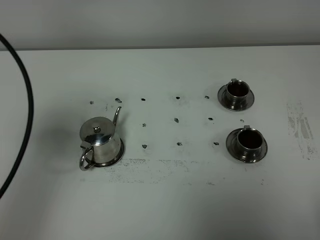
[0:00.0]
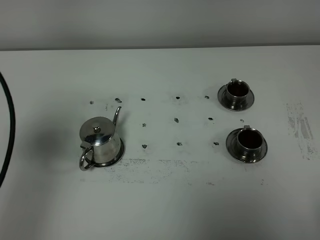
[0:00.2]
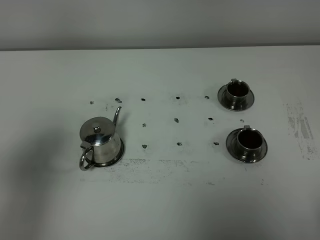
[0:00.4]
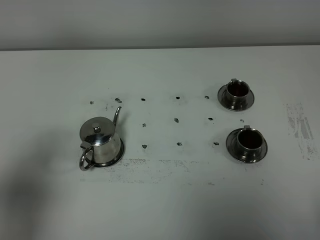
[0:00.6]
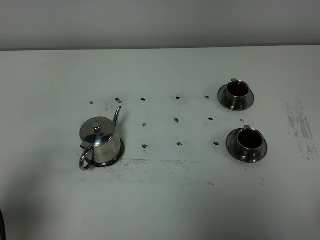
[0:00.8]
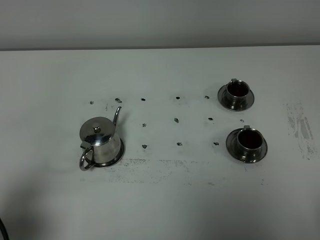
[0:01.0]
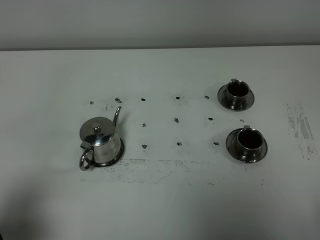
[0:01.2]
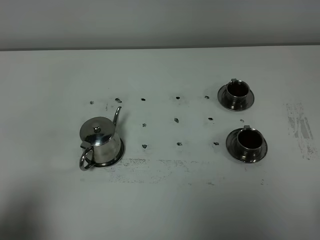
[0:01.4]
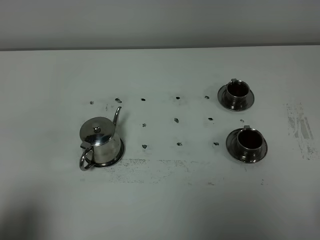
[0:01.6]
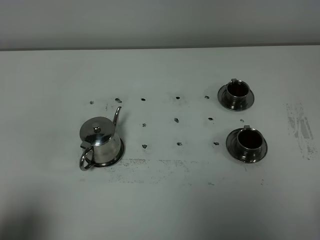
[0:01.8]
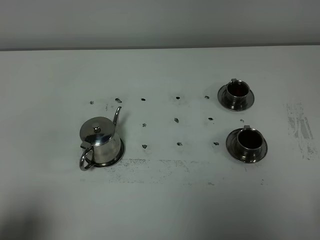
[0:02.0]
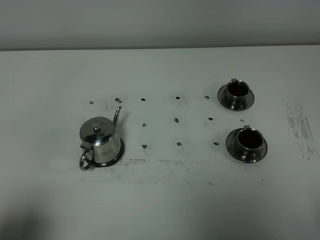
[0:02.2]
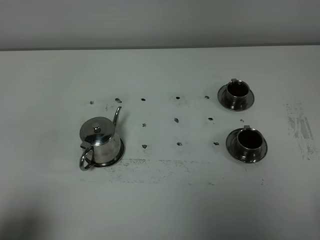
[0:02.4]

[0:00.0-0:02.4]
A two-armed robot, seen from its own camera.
Task of the whole recording: grasp the stainless steel teapot and pour the tea into the two stainless steel teacups one by one, put the stainless steel teapot back in its original place.
0:00.0 to 0:01.2: The left gripper is displaced backward and downward by approximately 20 cm.

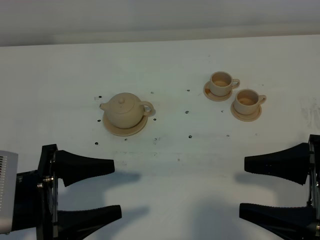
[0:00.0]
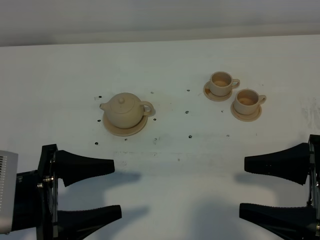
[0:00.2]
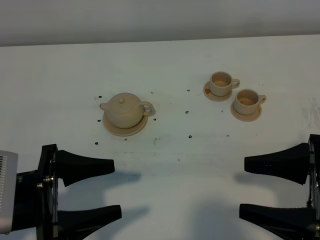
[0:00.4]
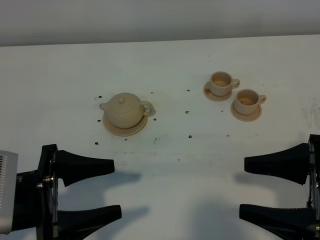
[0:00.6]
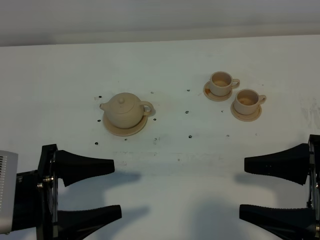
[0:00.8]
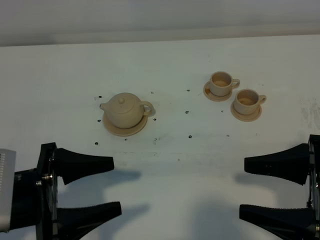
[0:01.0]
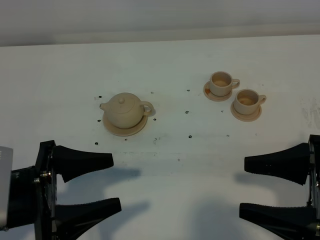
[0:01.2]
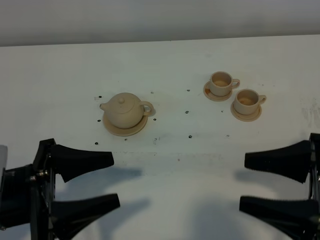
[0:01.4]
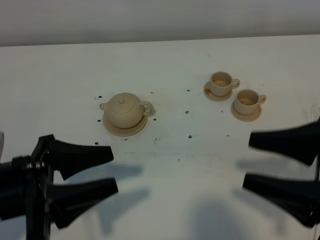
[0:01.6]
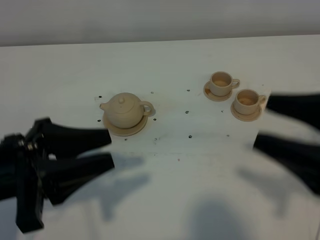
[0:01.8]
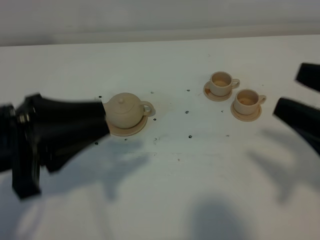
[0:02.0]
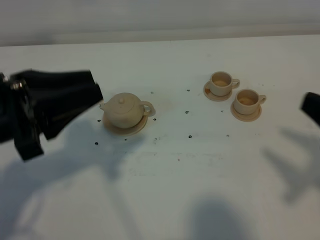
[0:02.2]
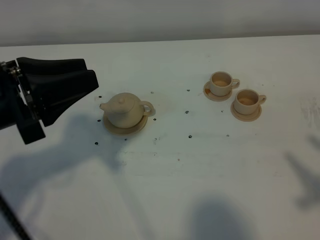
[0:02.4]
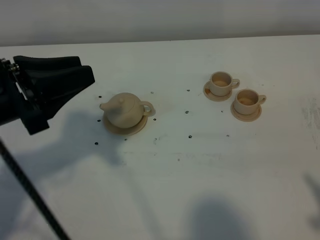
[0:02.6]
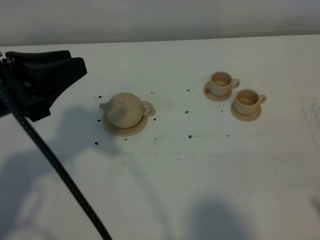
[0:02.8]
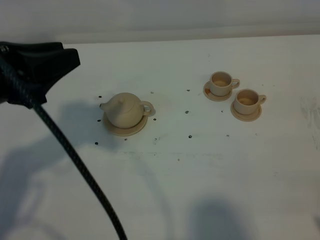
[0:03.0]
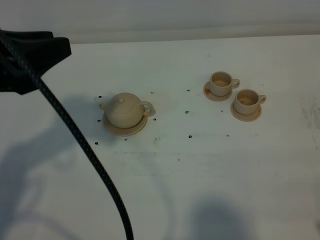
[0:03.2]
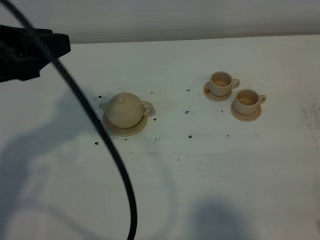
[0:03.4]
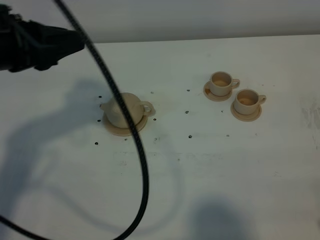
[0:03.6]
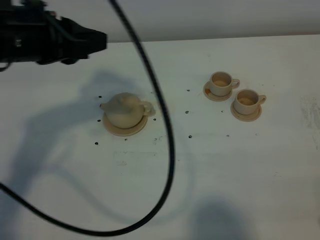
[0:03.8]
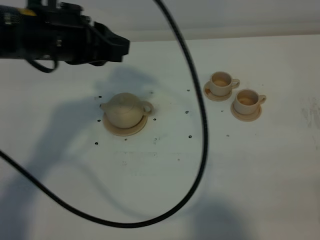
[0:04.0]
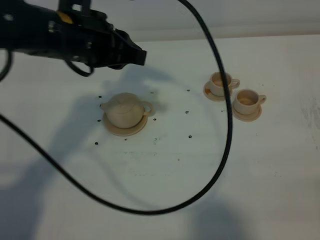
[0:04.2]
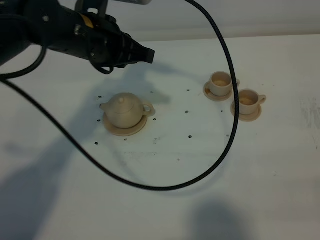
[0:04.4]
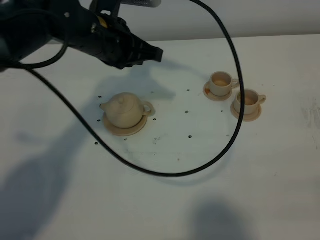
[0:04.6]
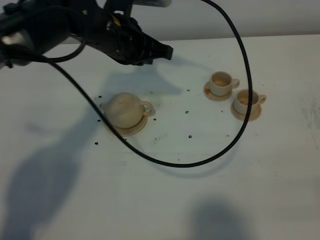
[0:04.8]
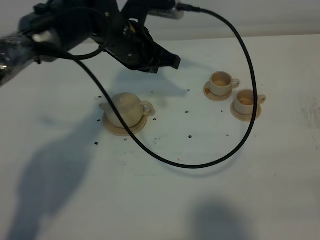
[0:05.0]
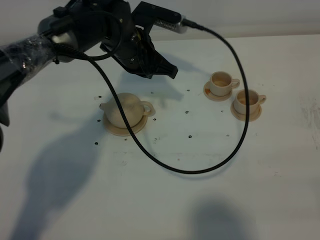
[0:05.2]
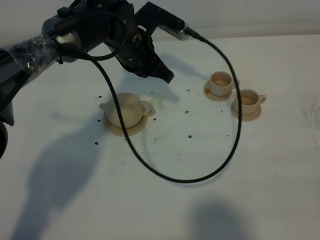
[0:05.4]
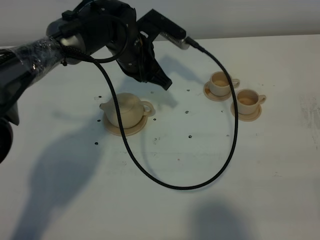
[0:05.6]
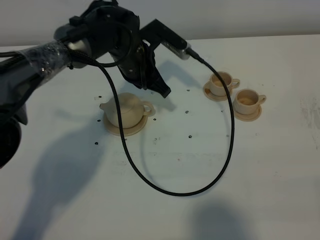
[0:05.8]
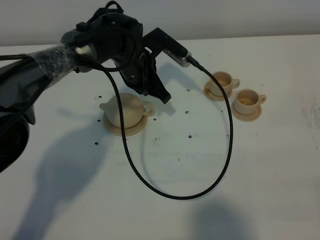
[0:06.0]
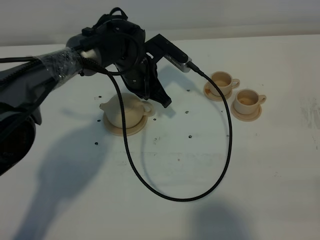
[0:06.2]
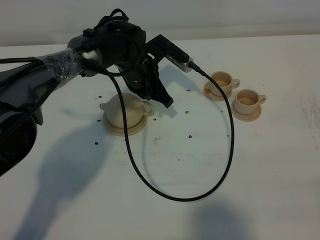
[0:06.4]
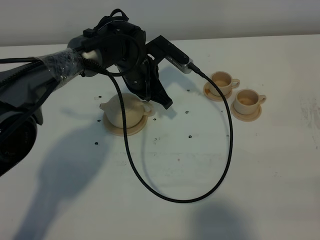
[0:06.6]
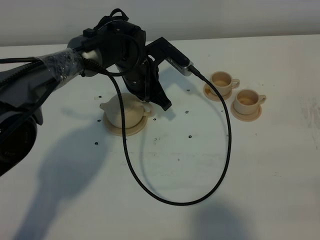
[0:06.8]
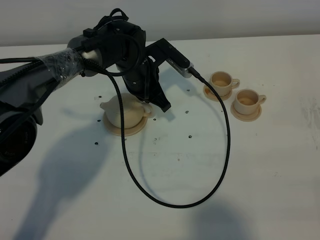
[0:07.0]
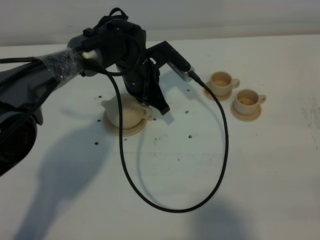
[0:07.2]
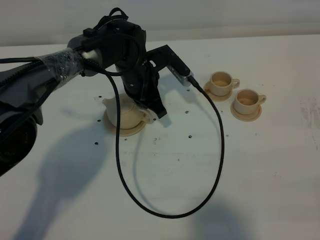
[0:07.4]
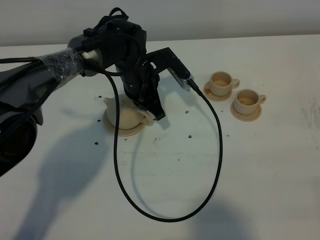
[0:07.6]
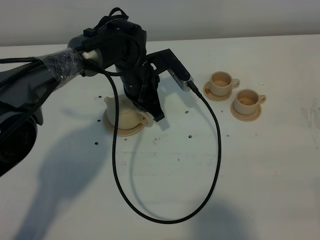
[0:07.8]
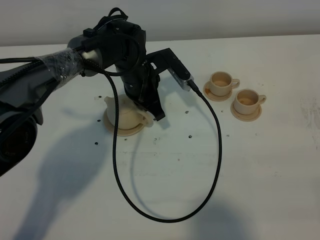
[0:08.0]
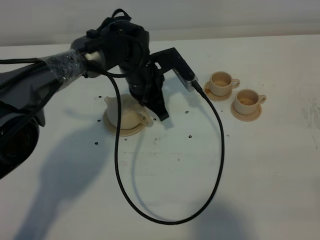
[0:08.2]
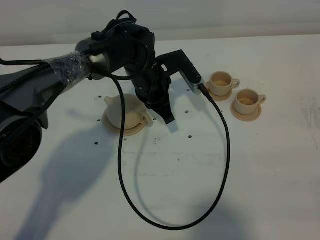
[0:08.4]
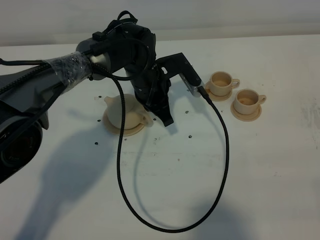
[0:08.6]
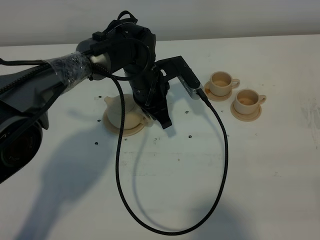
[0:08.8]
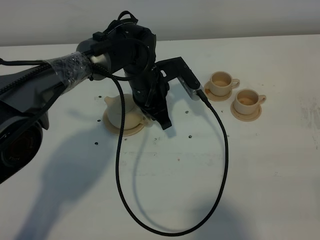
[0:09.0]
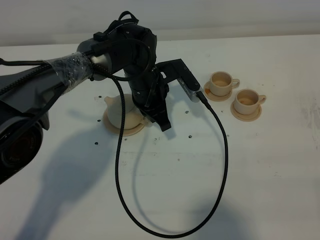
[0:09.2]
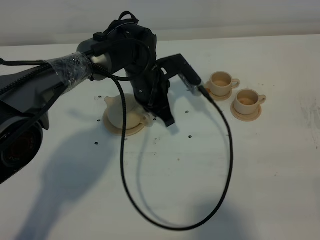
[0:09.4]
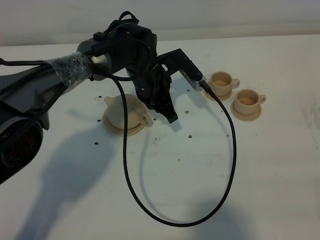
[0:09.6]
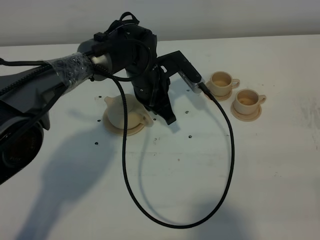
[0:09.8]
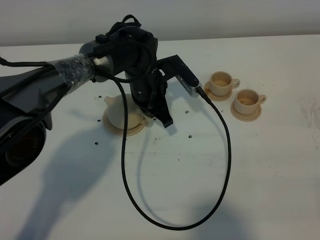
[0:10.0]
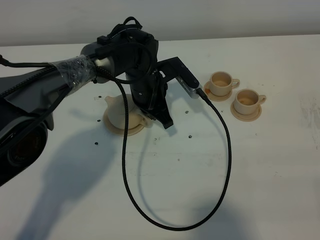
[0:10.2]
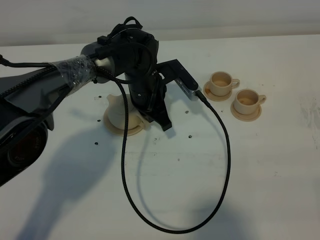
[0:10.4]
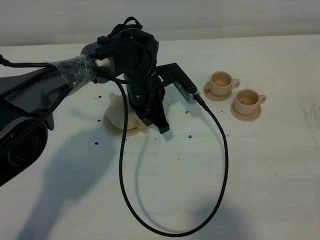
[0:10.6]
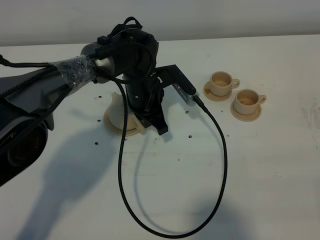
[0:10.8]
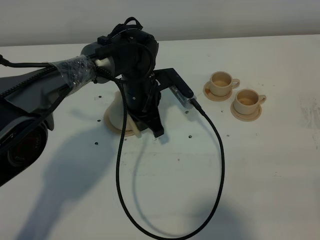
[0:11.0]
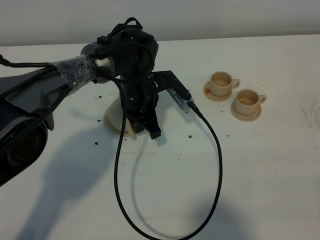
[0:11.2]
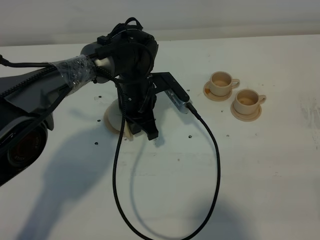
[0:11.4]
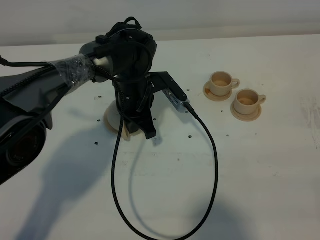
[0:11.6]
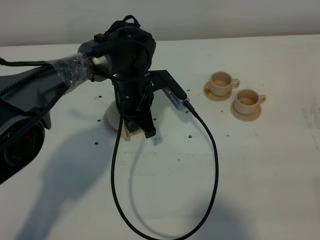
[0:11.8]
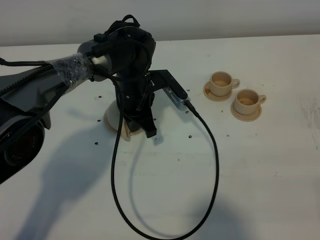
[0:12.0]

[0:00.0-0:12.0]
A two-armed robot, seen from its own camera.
Task of the whole recording: grasp the brown teapot and pour the tea into the two brown teacups one by one, put the brown teapot back in its original place.
0:00.0 to 0:01.6: The grippers make only small movements.
0:01.6 to 0:03.0: The left gripper travels upward and forward by roughly 15 cm. The right gripper is displaced backward and to the right by roughly 15 cm.
0:03.0 to 0:04.4: The right gripper closes its fingers; the left gripper moves forward and to the right, roughly 20 cm, and closes.
0:04.4 to 0:06.0: The left gripper heads downward, forward and to the right, covering some 15 cm.
0:06.0 to 0:07.6: The grippers stay close to where they were, moving slightly.
0:07.6 to 0:12.0: There are only small adjustments of the grippers.

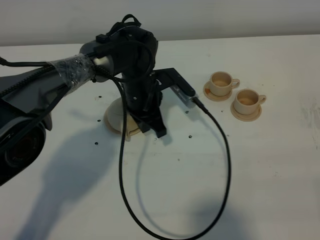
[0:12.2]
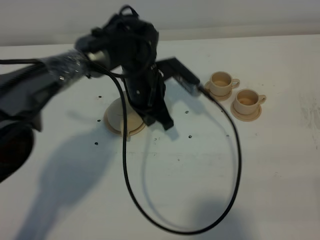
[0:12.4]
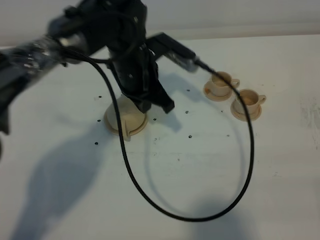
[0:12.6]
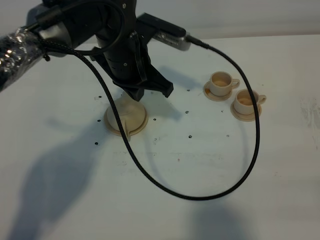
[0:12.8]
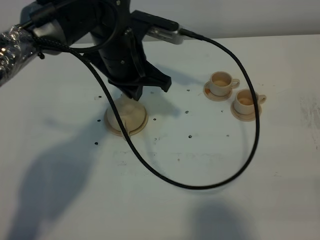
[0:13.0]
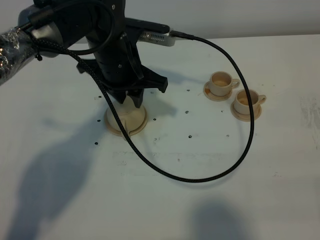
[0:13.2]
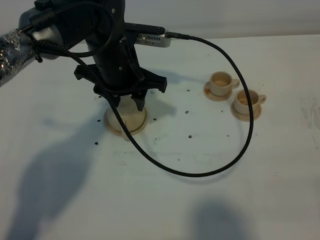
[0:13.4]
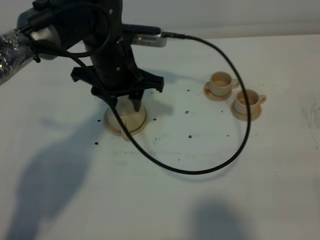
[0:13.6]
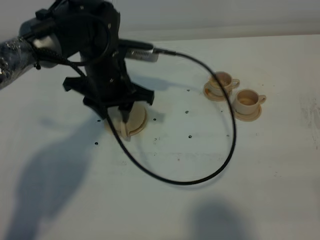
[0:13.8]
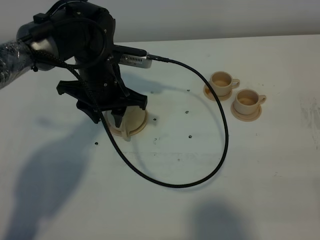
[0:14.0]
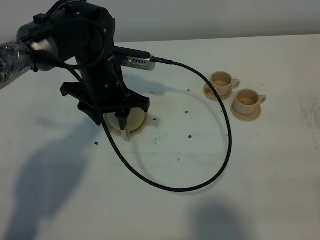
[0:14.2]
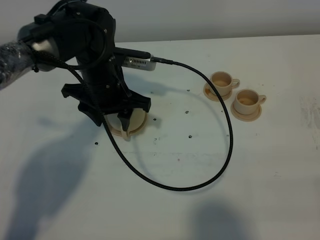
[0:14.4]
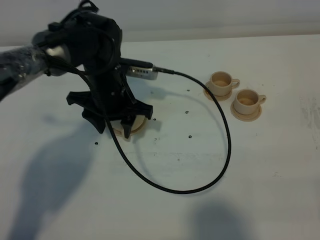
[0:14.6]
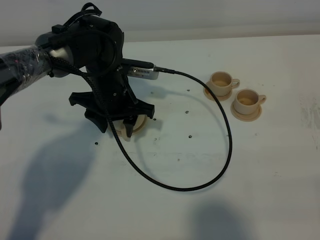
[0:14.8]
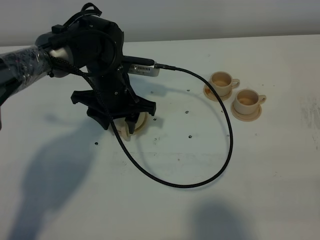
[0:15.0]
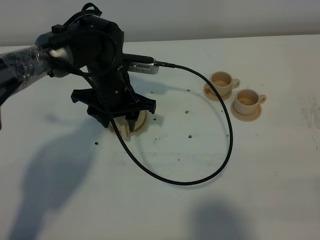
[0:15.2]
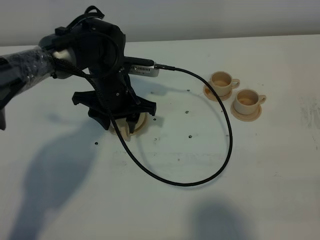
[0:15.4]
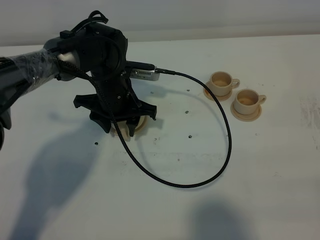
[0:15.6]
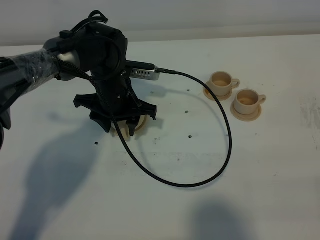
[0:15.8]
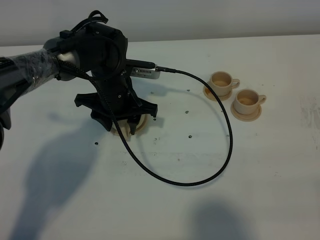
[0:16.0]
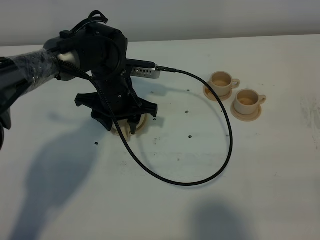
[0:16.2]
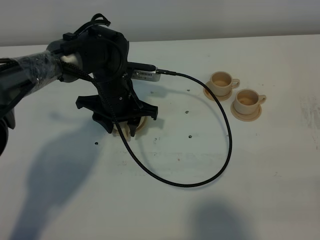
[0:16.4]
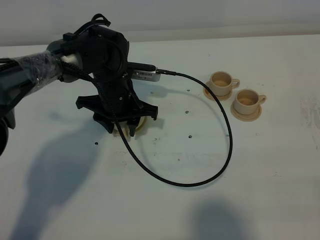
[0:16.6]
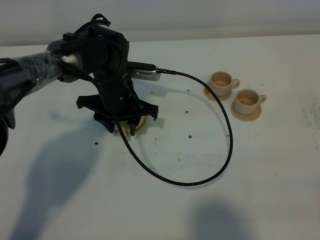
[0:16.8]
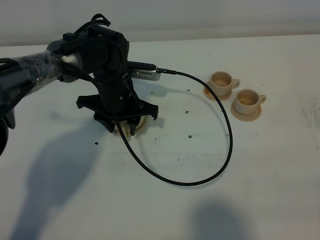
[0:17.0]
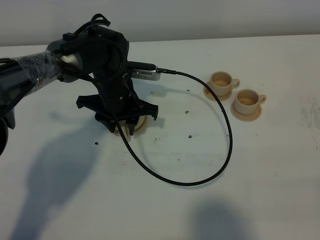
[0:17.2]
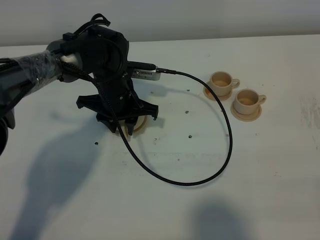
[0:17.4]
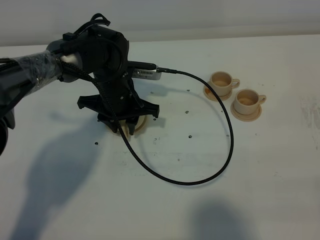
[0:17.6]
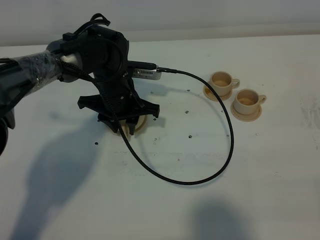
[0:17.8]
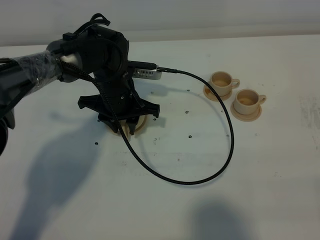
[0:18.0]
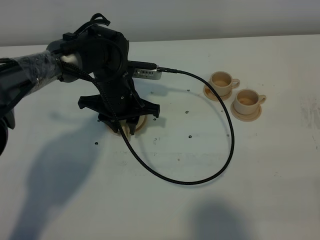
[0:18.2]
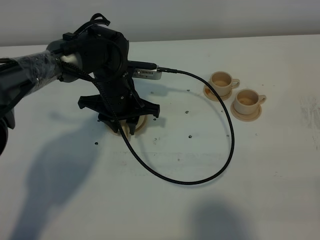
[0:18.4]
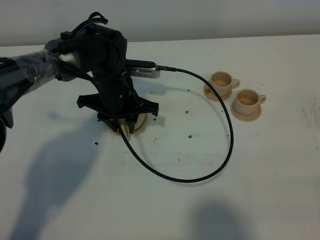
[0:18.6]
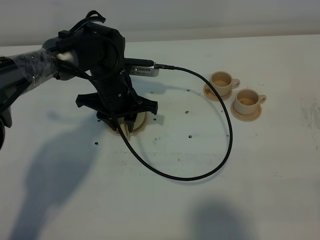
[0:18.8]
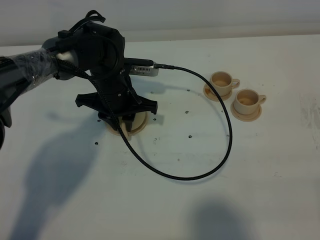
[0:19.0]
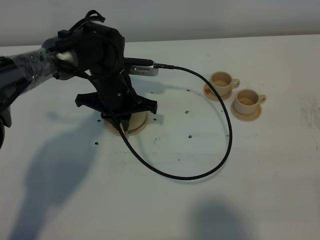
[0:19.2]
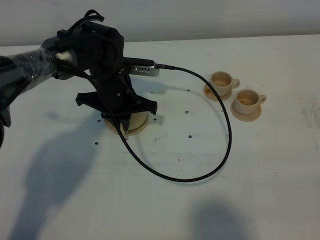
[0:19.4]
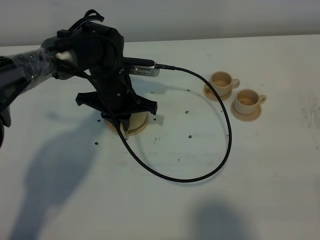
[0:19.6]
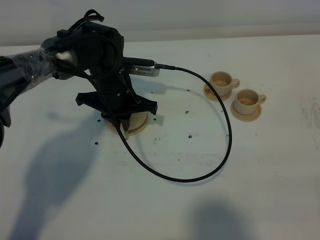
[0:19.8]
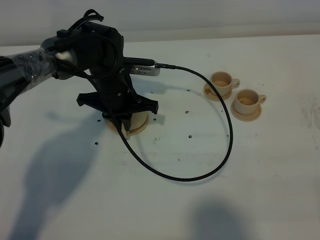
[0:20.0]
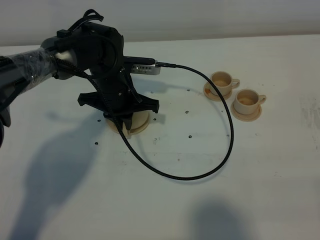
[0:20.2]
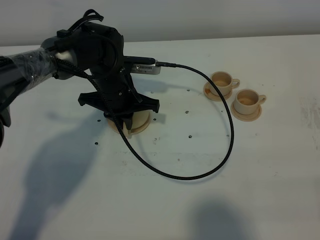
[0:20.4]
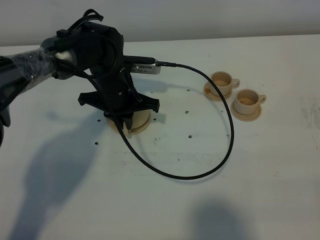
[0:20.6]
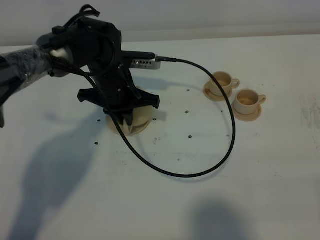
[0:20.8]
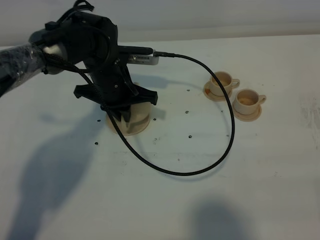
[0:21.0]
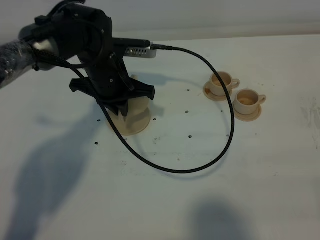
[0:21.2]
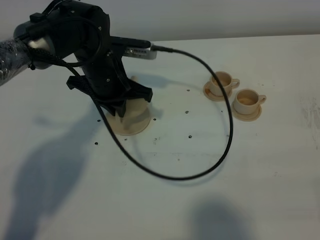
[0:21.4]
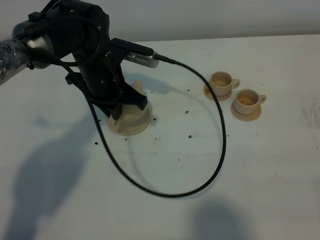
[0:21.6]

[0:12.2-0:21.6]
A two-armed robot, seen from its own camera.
Task of the whole recording: grasp the brown teapot and pour the tea into the two brown teacups one by one, put the brown teapot back in its original place.
Step, 0:12.2 to 0:21.0: Pick up the teapot with the left gripper.
0:12.2 to 0:13.8: The left gripper travels upward and to the left by approximately 10 cm, and opens.
0:13.8 to 0:15.4: The left gripper moves some 5 cm.
0:15.4 to 0:18.4: Both grippers stay put.
0:18.4 to 0:20.0: The left gripper closes up.
0:20.0 to 0:21.6: The left gripper goes roughly 5 cm upward.
